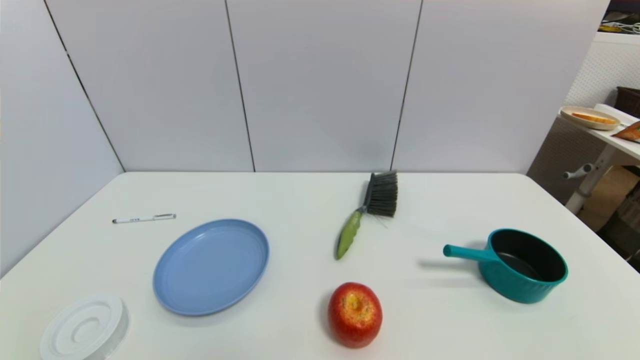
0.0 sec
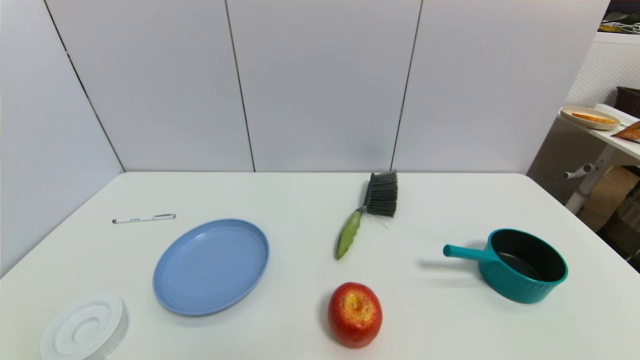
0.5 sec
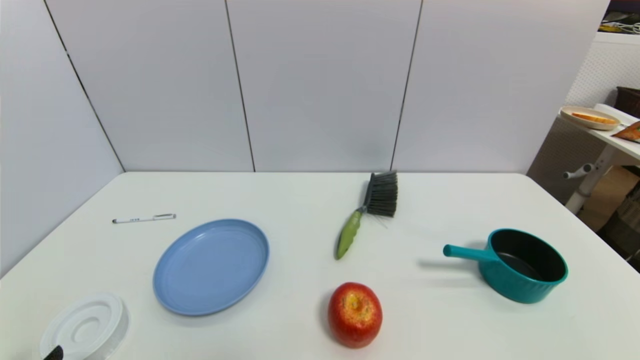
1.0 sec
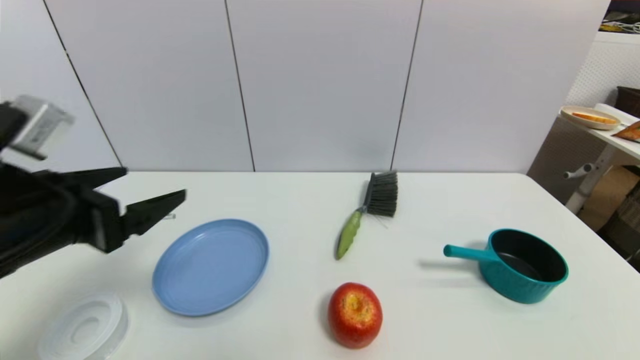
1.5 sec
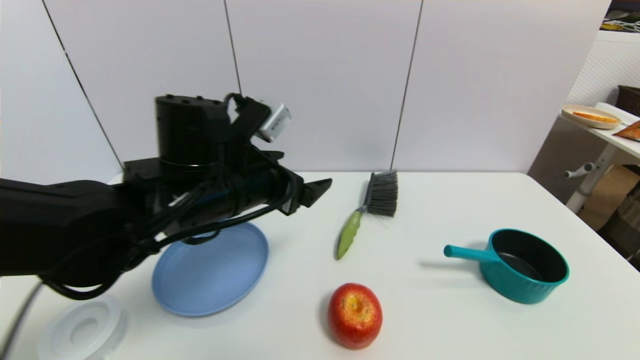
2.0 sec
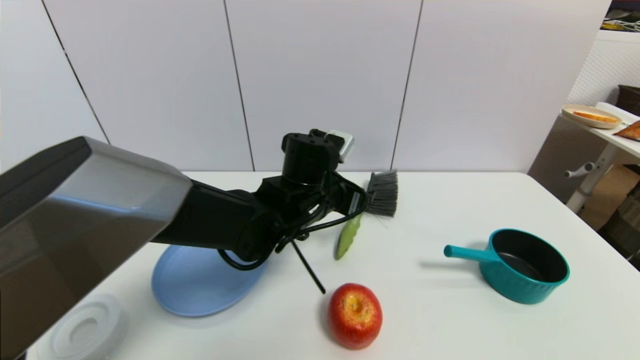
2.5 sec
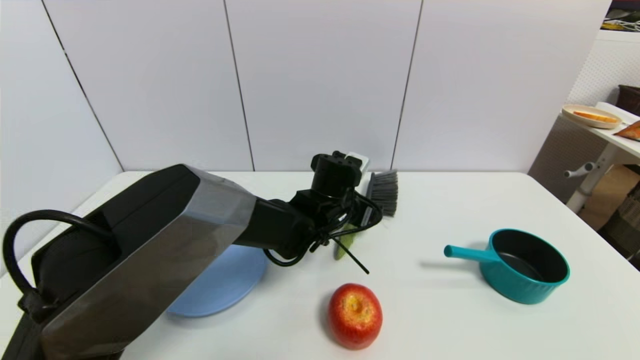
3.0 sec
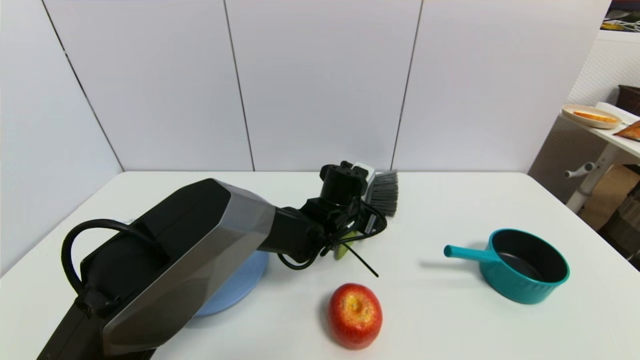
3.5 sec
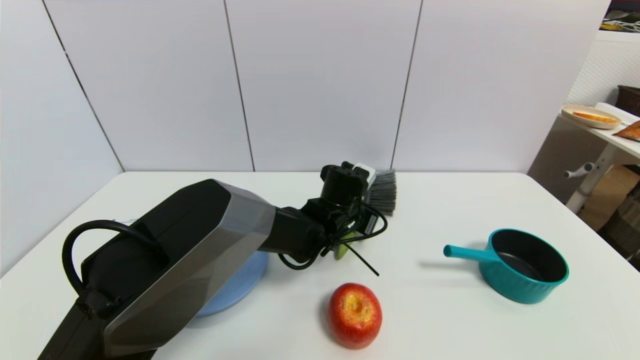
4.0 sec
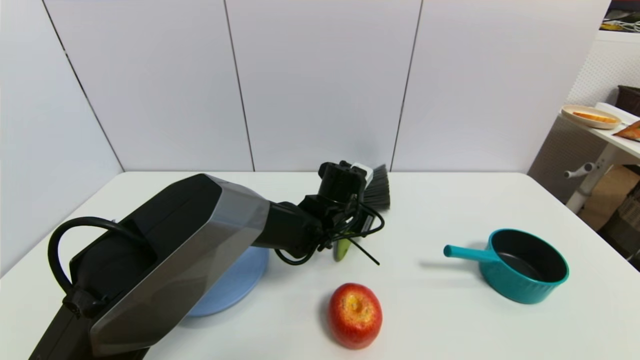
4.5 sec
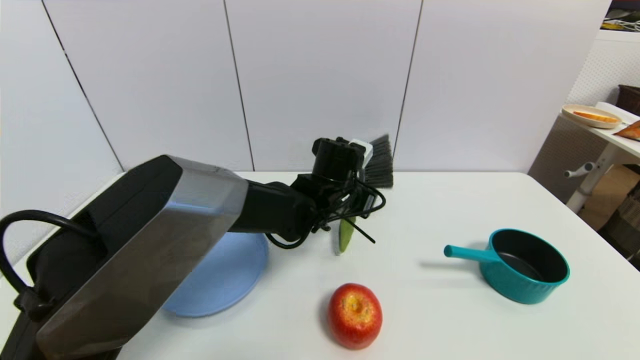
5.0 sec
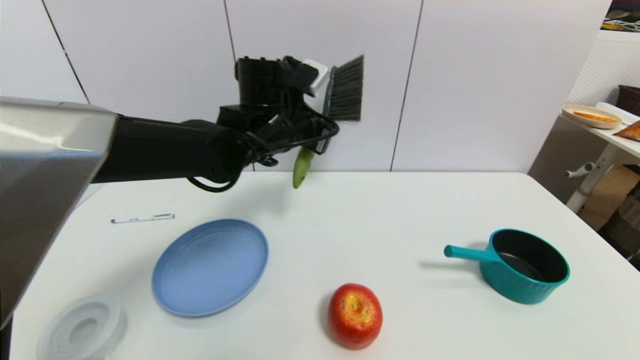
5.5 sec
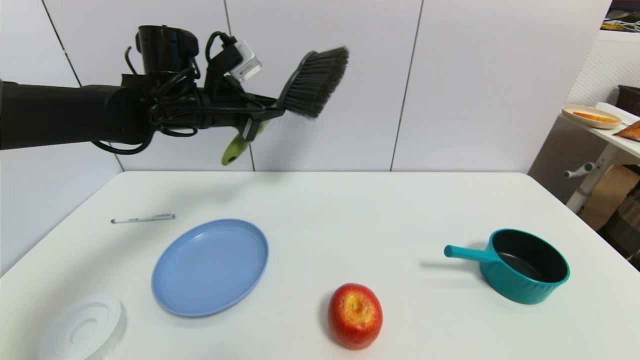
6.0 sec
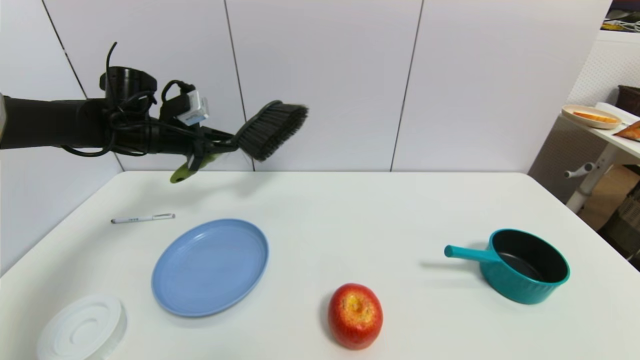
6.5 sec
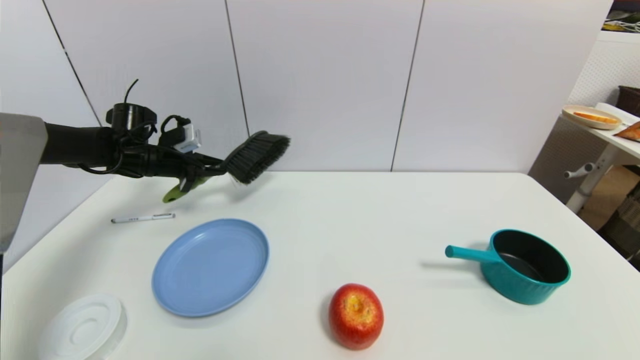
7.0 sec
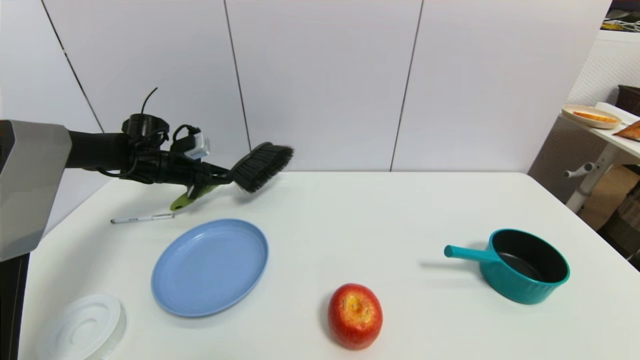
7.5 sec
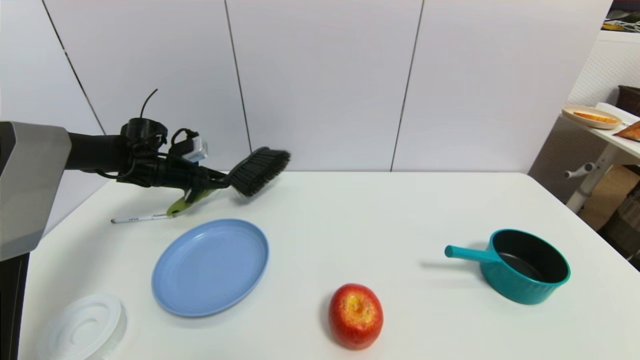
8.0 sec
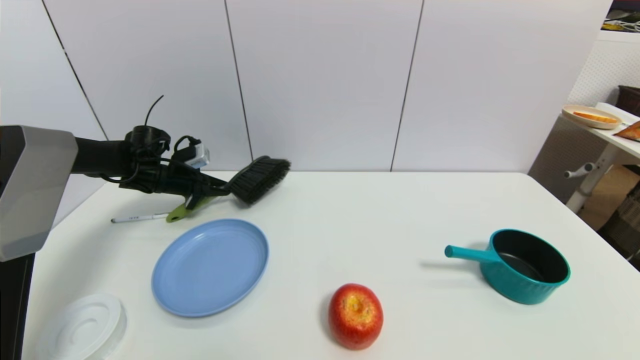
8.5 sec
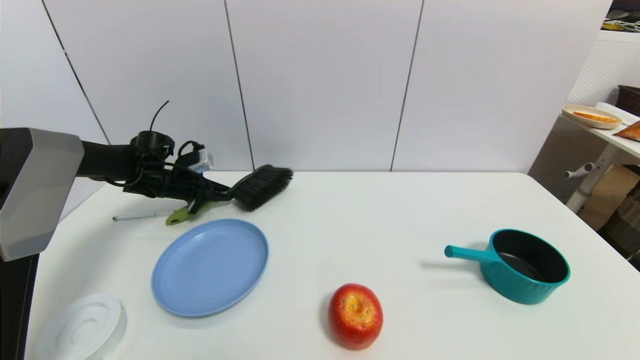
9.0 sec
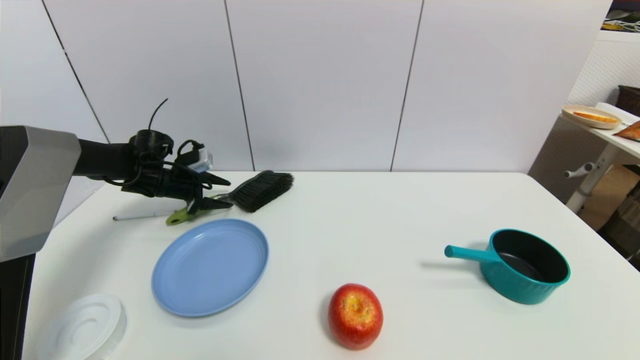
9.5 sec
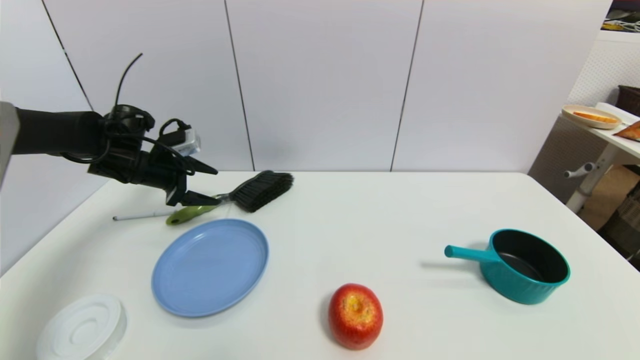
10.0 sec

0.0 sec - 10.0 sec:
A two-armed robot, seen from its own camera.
Task of the whole recording: put the brush in the designated position.
Step, 1.0 sec - 4.5 sec: Grasp the brush with left gripper.
Step, 5.0 sec - 9.0 sec: Place the brush on the table with left gripper.
0.0 sec - 2.0 sec: The left gripper moves forward, to the right and upward, some 35 cm.
2.0 sec - 4.0 sec: The left gripper heads downward, to the right and forward, covering roughly 25 cm, and closes.
4.0 sec - 6.0 sec: The left gripper heads to the left and upward, covering about 30 cm, and closes.
6.0 sec - 8.0 sec: The left gripper heads downward, to the left and forward, covering roughly 20 cm.
8.0 sec - 10.0 sec: The left gripper shifts some 5 cm backward, and opens.

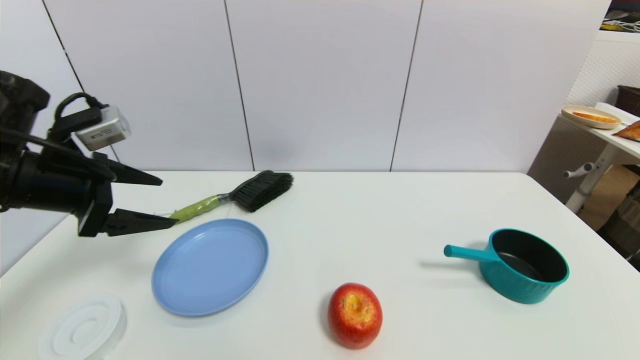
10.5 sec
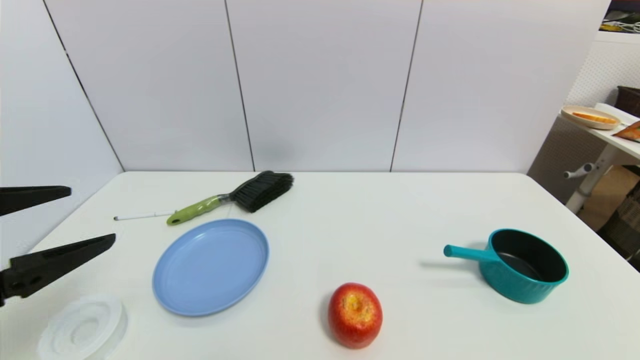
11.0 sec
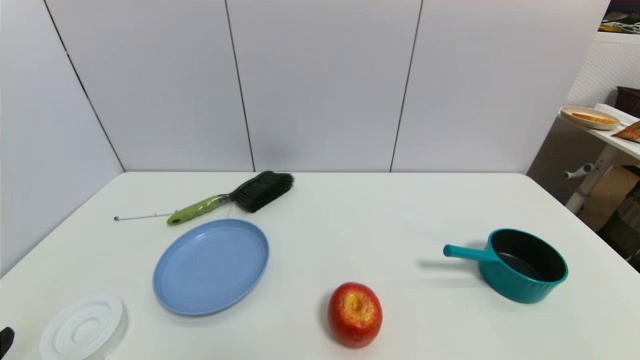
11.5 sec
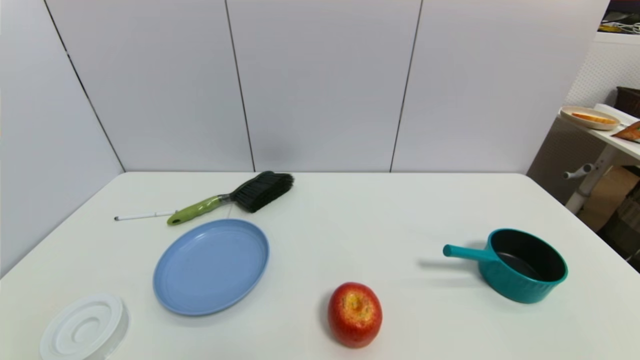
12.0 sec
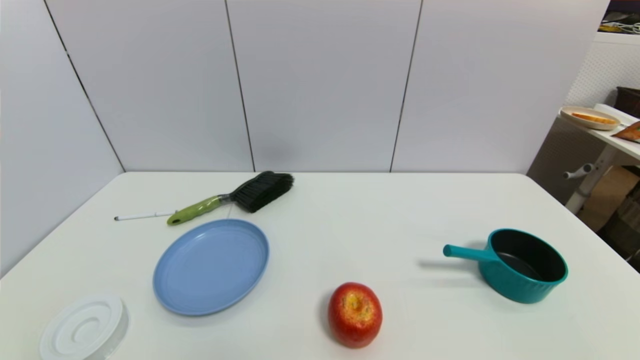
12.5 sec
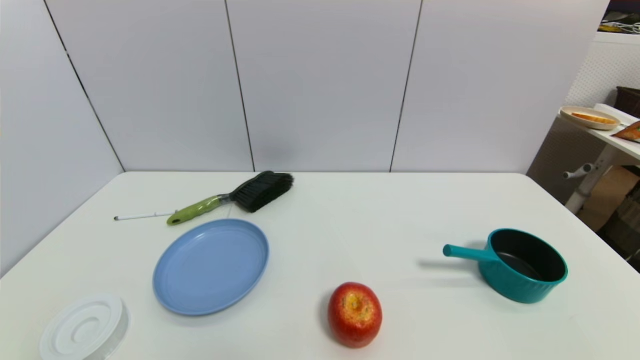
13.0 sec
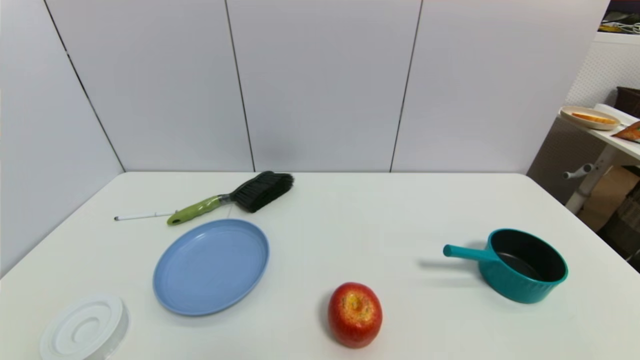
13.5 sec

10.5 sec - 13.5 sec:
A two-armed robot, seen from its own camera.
Task of the whole recording: put the brush in the designated position.
10.5 sec - 12.0 sec: The left gripper shifts some 30 cm backward and downward.
